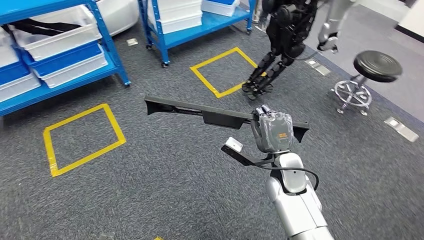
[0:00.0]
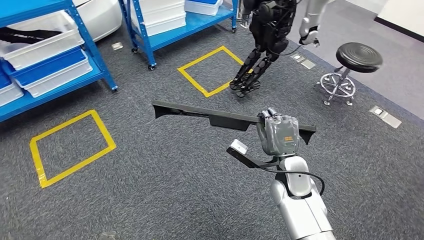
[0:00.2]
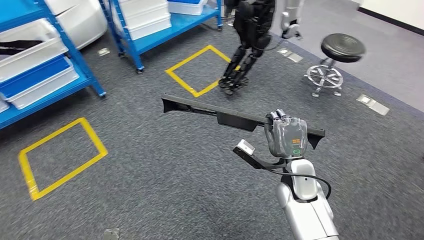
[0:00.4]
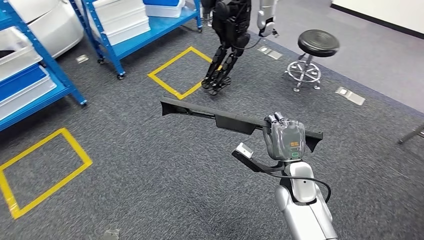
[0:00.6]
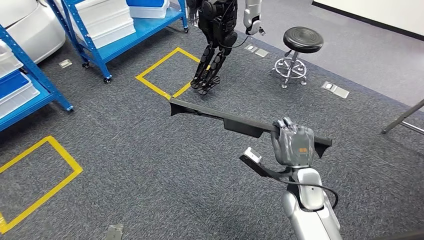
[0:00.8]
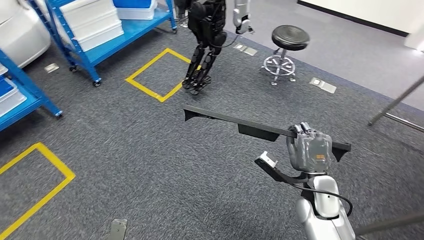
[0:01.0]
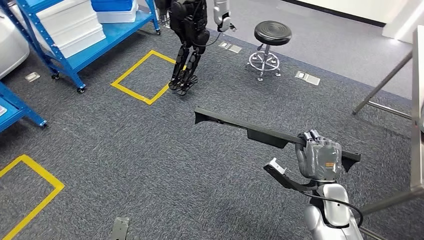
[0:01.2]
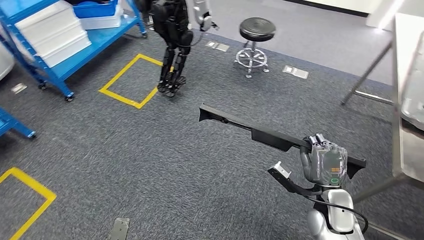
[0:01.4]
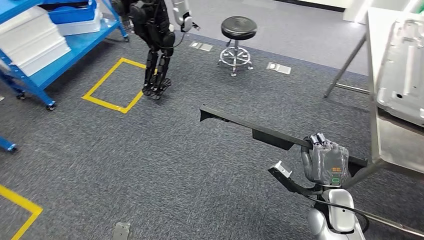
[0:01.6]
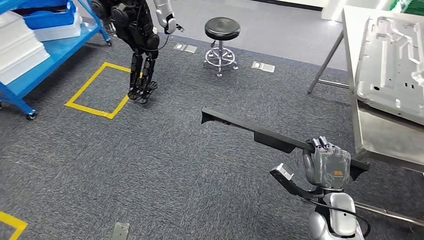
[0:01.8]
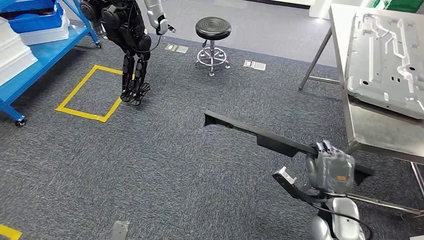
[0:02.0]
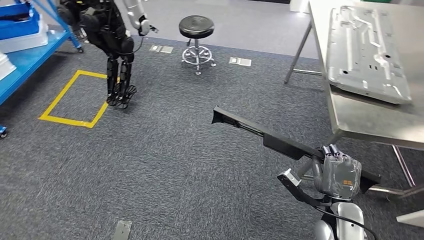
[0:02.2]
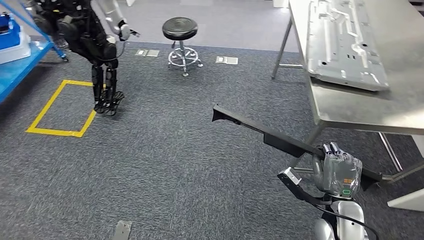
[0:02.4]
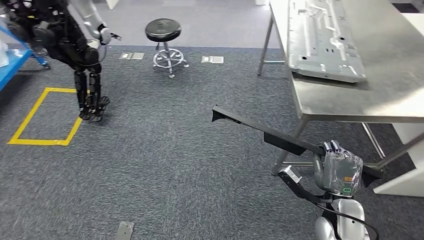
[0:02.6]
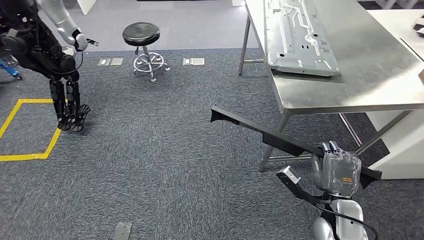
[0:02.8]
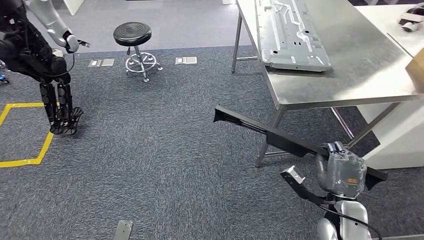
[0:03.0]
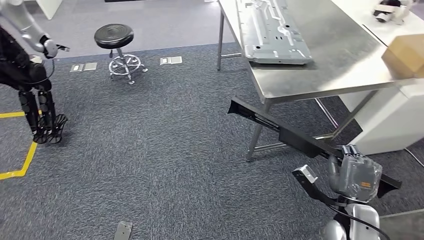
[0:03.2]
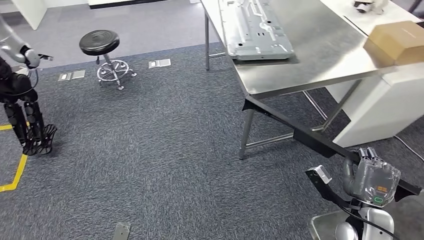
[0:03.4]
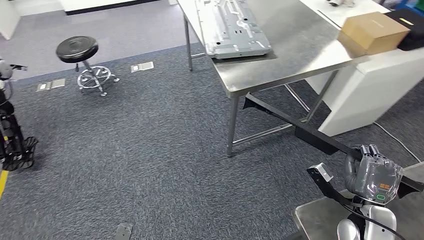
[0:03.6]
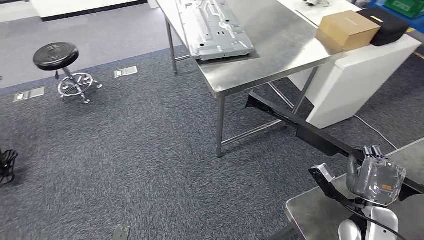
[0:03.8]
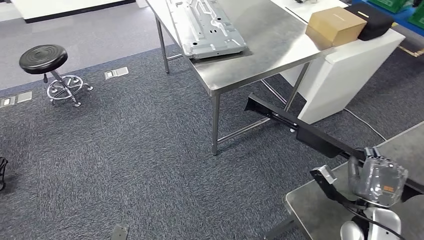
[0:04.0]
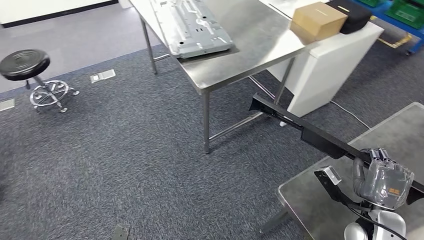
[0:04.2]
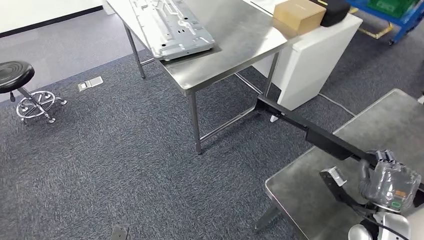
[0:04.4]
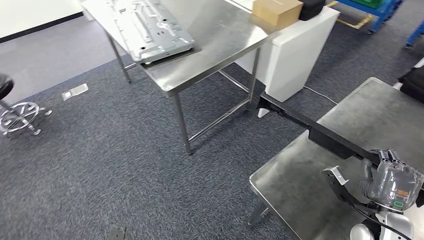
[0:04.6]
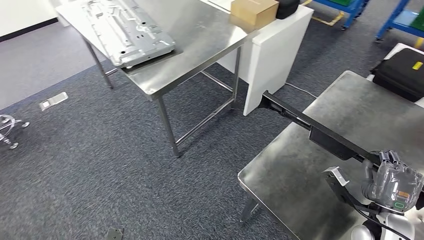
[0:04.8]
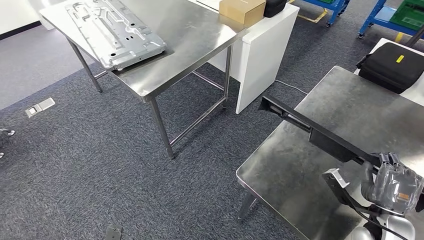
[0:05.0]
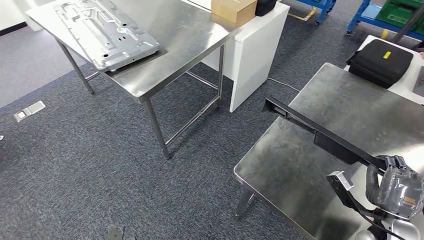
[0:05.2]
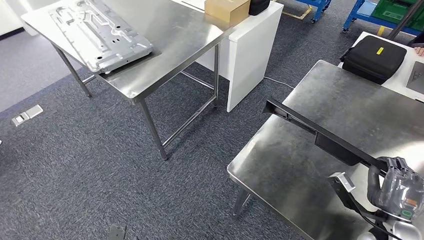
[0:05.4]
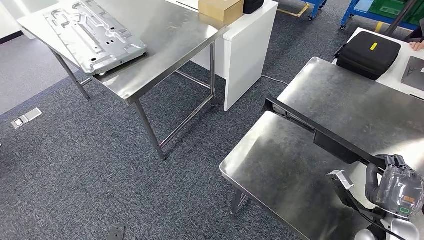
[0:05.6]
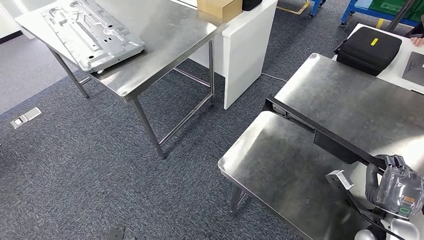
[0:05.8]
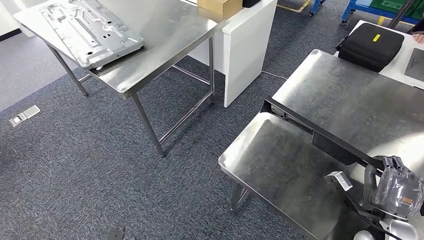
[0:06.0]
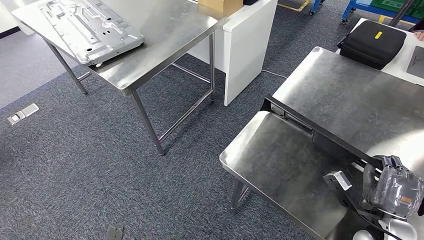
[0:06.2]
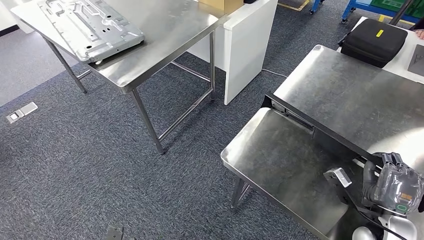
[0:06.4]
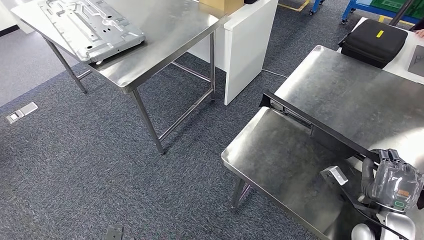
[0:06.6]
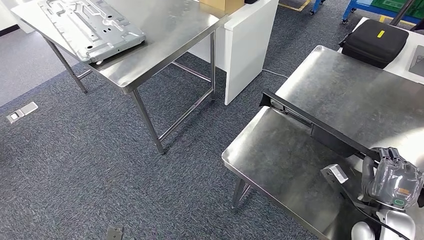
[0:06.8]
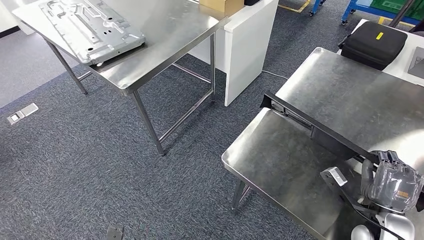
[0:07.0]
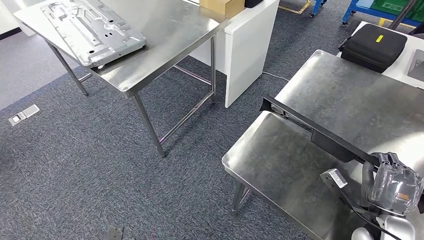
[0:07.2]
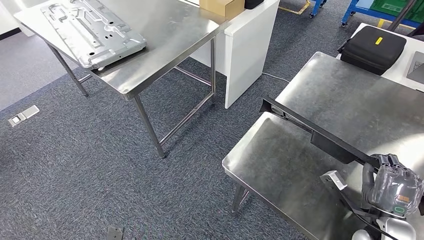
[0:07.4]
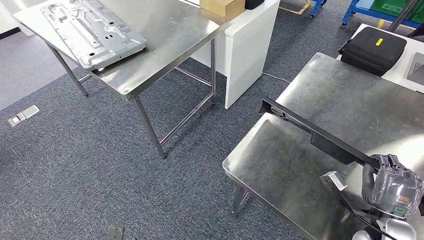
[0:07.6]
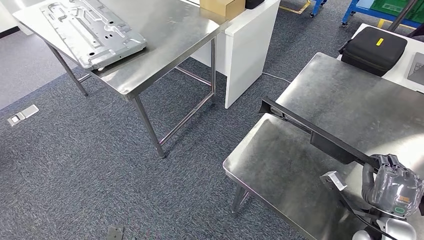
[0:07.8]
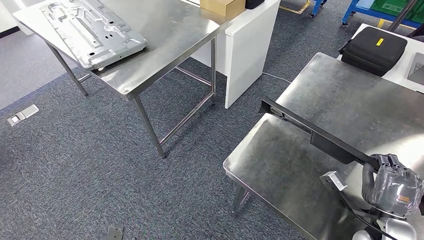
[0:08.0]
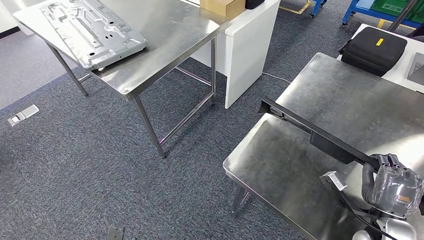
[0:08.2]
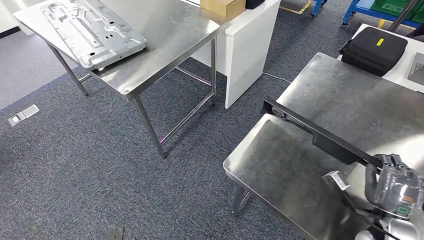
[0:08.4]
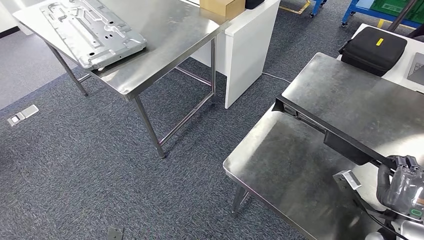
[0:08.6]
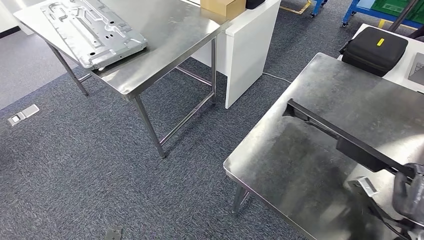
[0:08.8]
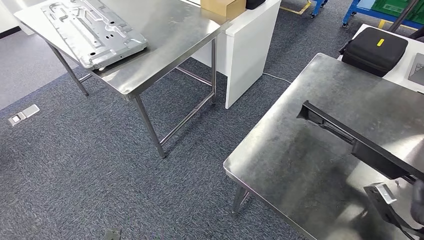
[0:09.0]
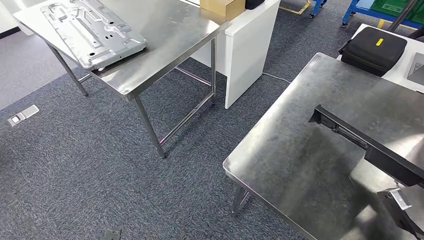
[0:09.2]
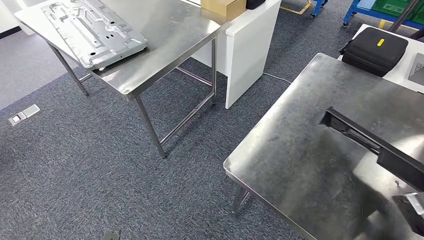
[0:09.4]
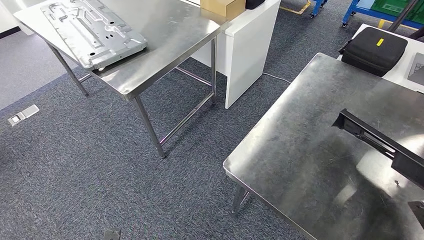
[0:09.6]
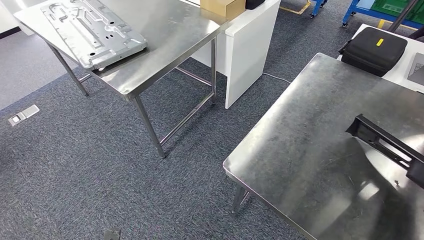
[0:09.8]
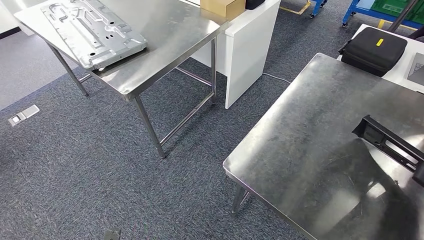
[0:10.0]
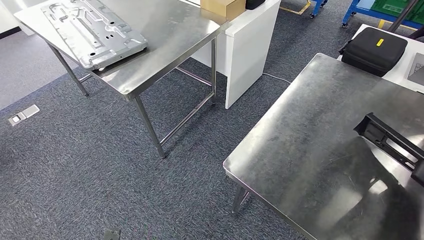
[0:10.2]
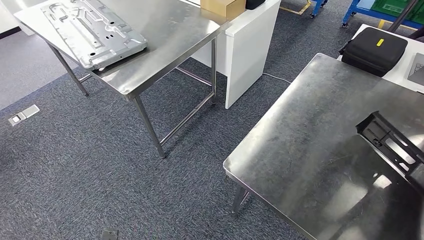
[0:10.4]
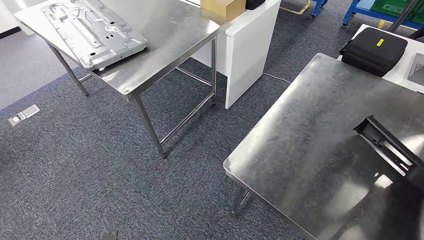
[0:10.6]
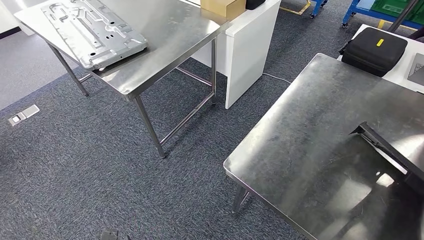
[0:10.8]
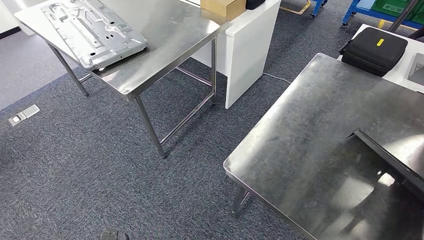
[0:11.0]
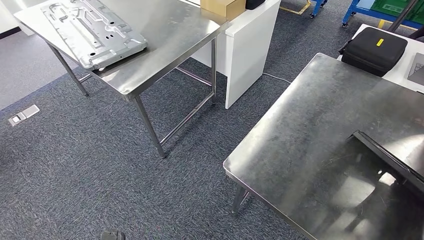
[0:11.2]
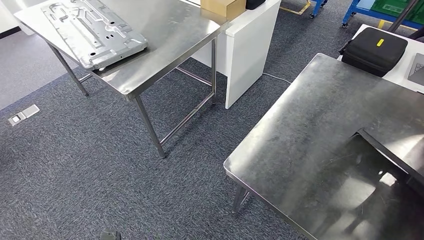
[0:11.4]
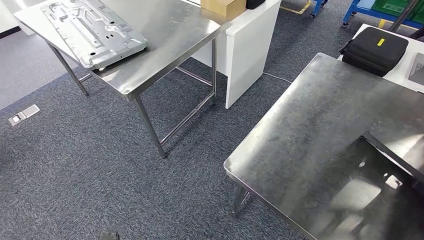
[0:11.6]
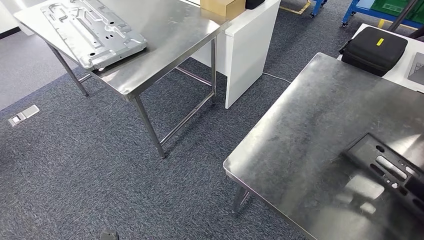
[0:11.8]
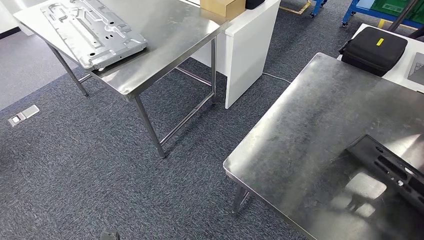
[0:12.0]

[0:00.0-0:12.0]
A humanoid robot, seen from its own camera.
Step, 0:00.0 to 0:04.6: Move the large material to the workbench.
0:06.0 to 0:07.6: There are only small adjustments of the hands.
0:07.6 to 0:09.0: The right hand moves to the right, roughly 5 cm.
0:09.0 to 0:10.4: The right hand goes roughly 10 cm to the right and backward.
0:10.4 to 0:12.0: The right hand travels upward and to the right by some 15 cm.

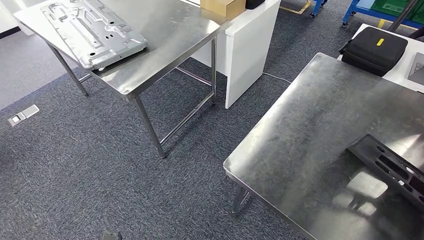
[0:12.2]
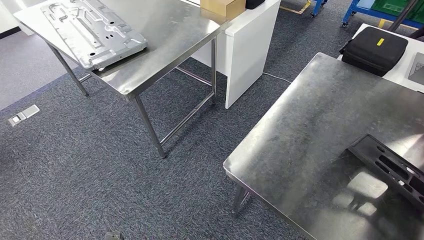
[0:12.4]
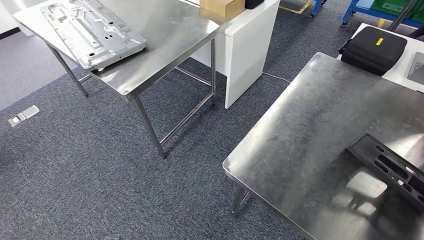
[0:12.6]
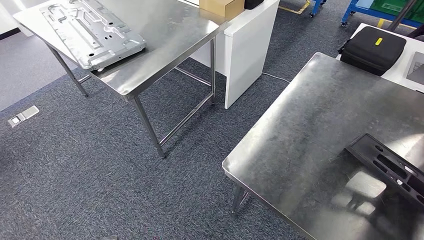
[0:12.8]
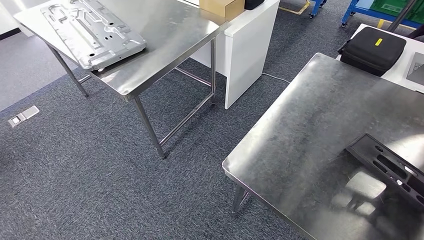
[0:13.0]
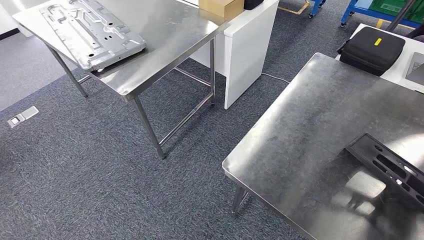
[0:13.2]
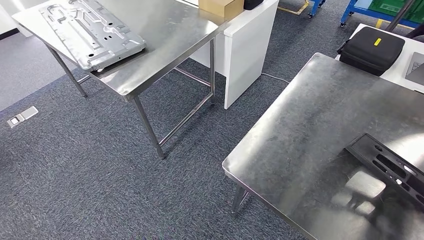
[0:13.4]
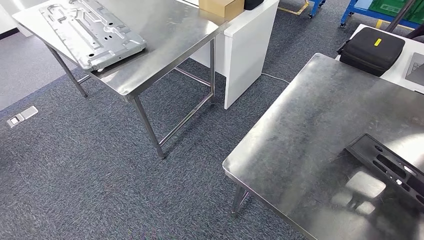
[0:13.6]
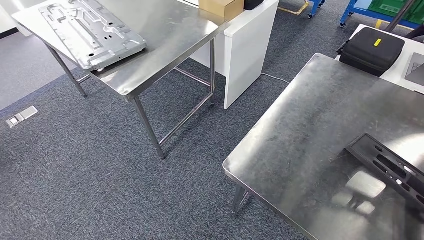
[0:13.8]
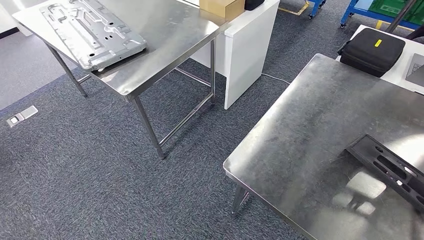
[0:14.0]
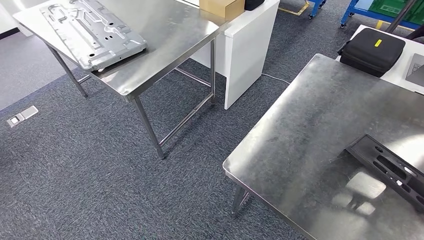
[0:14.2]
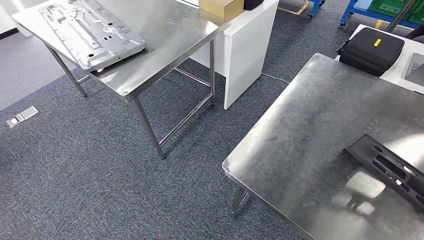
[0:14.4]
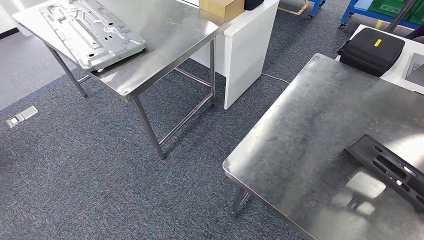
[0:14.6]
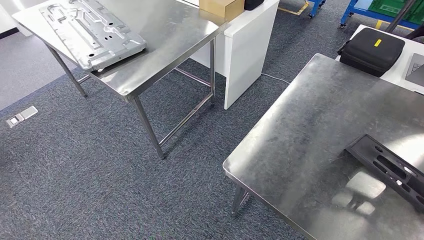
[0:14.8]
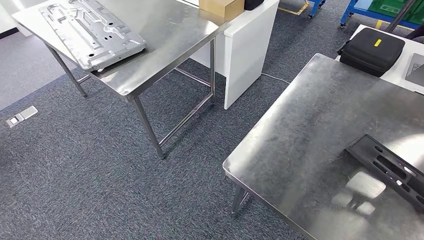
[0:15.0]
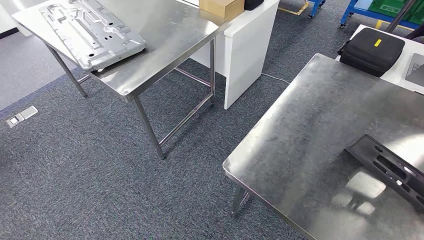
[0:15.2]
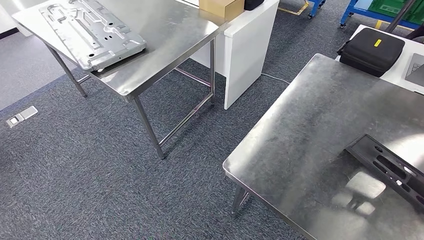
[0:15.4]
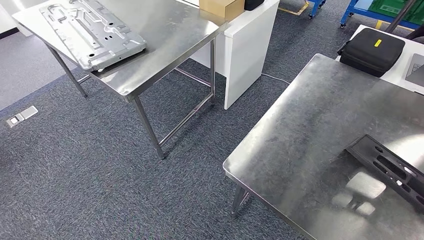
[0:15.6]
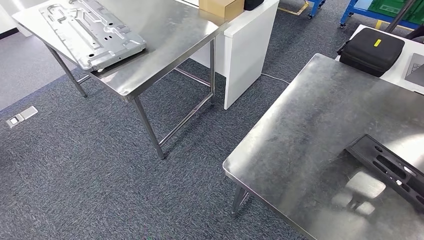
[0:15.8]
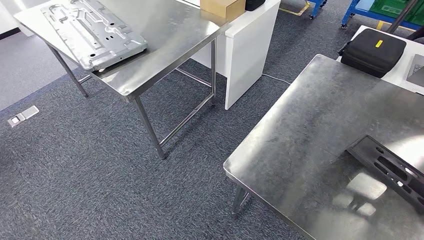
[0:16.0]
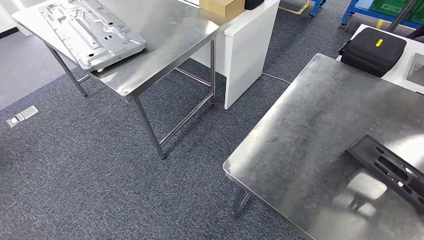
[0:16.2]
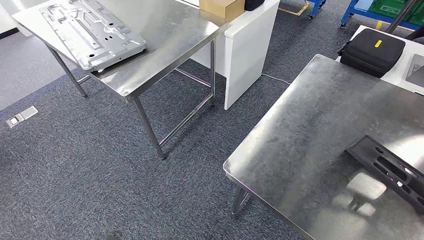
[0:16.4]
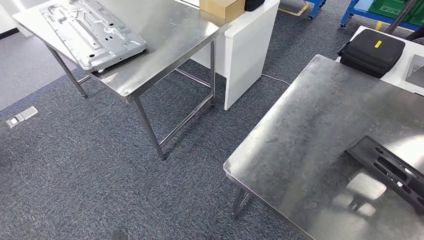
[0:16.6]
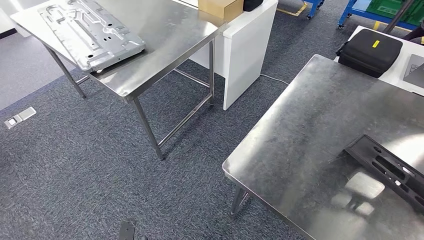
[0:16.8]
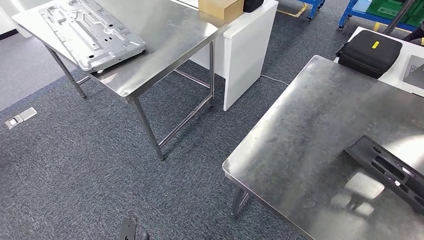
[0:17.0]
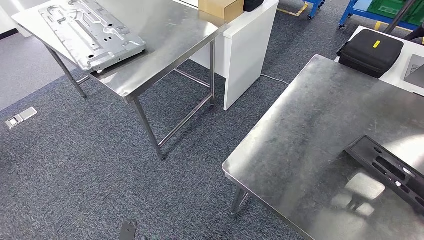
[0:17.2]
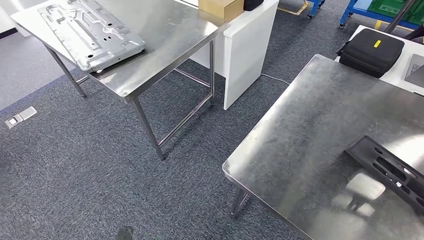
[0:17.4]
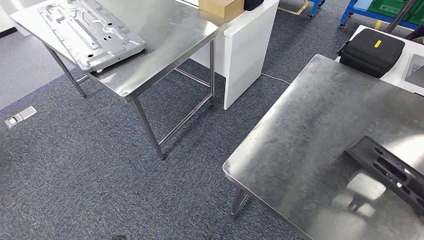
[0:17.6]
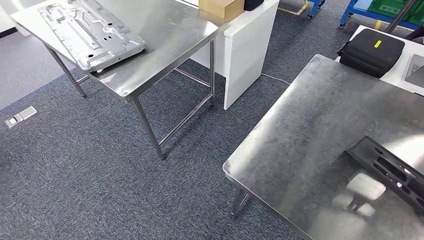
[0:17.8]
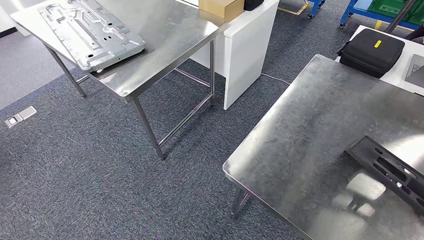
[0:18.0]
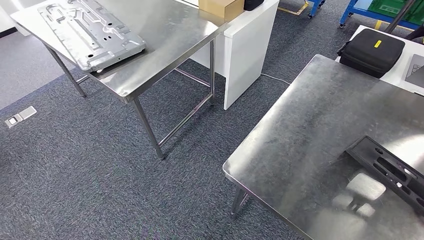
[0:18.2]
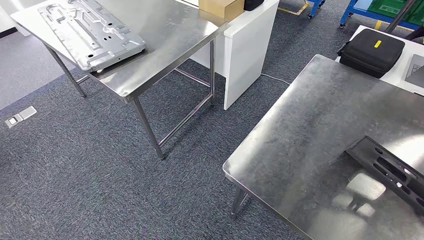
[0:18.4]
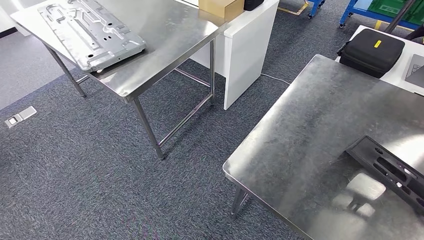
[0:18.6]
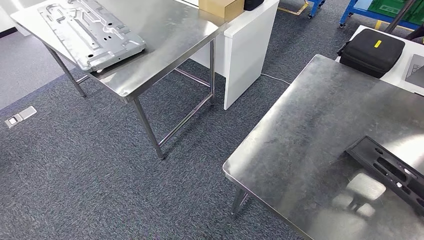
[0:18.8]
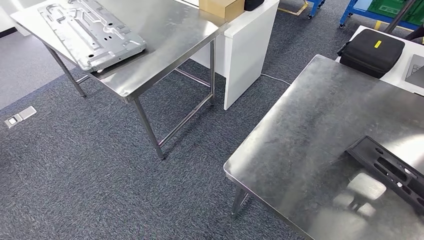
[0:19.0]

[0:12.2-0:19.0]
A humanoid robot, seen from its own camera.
0:12.2 to 0:13.6: The right hand is displaced backward, to the left and downward by some 20 cm.
0:13.6 to 0:15.0: The right hand travels downward by about 20 cm.
0:15.0 to 0:16.2: The right hand travels backward by roughly 10 cm.
0:16.2 to 0:17.6: The right hand moves to the left, downward and forward, roughly 25 cm.
